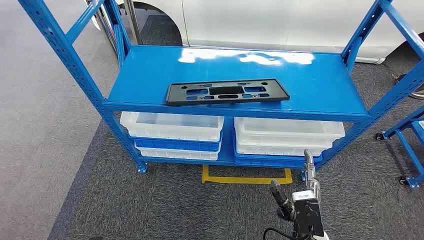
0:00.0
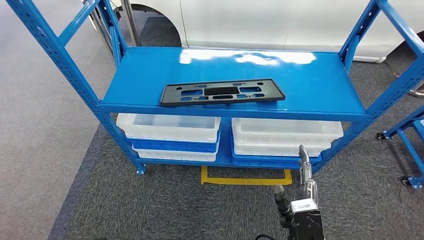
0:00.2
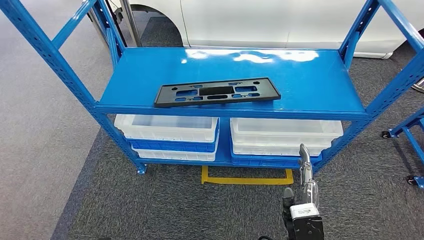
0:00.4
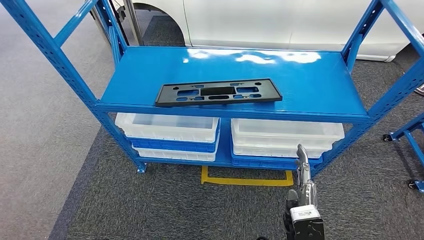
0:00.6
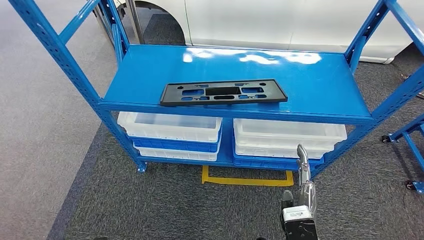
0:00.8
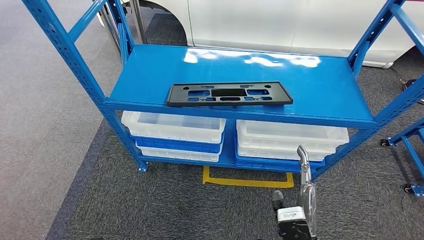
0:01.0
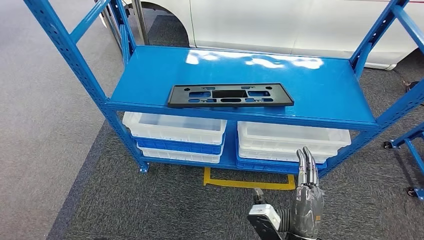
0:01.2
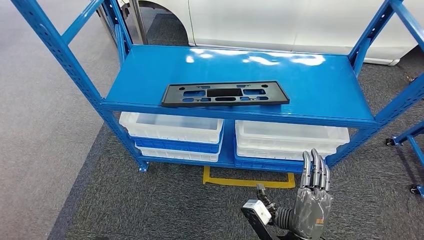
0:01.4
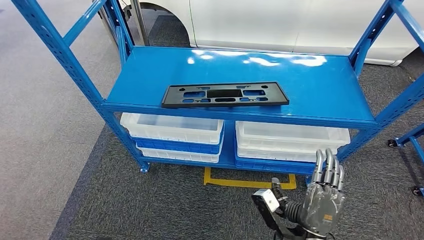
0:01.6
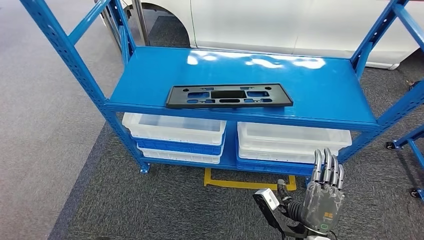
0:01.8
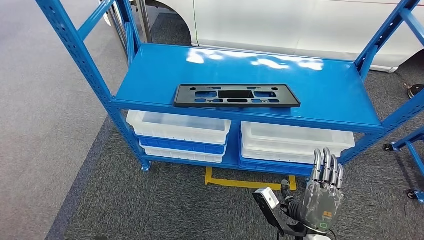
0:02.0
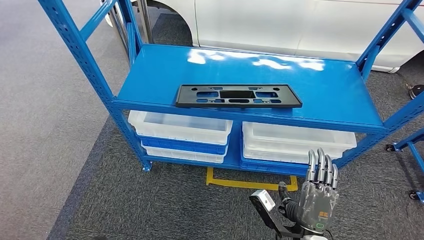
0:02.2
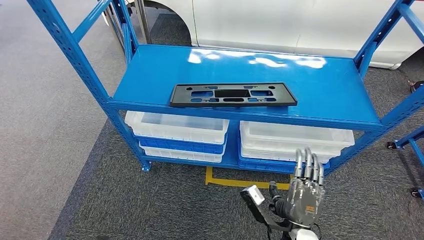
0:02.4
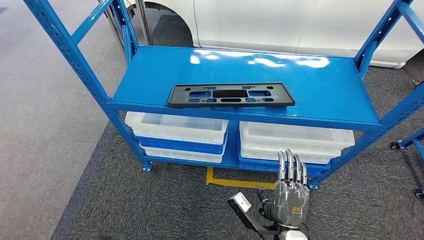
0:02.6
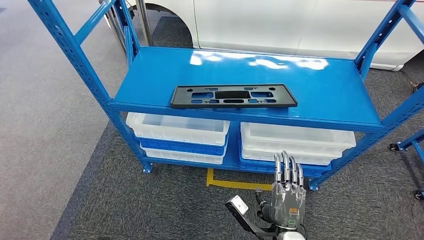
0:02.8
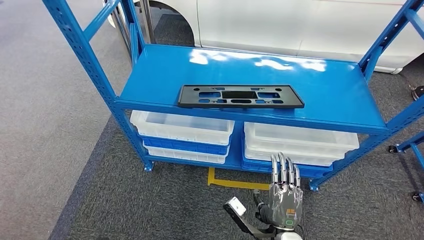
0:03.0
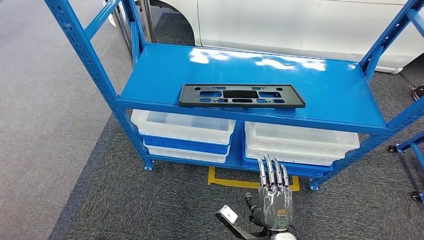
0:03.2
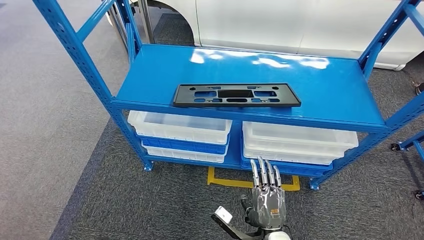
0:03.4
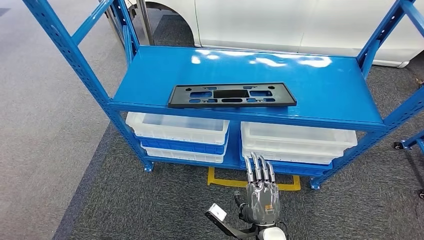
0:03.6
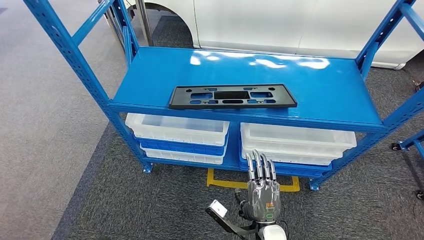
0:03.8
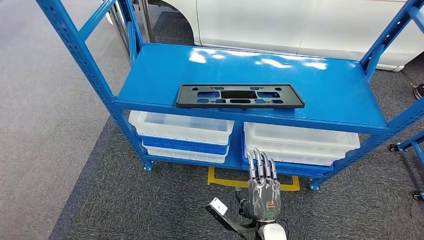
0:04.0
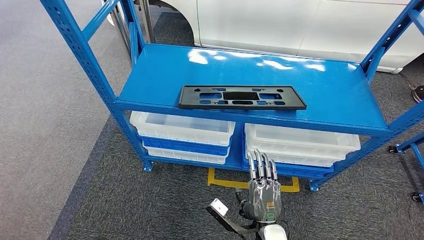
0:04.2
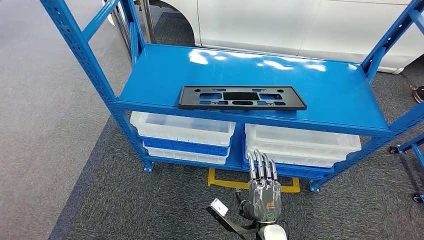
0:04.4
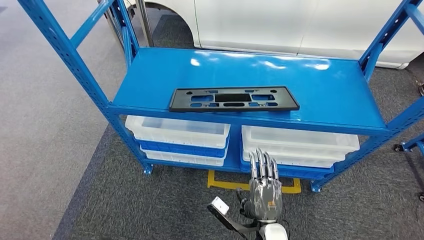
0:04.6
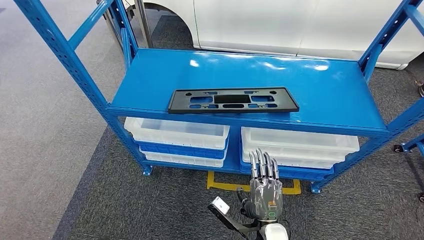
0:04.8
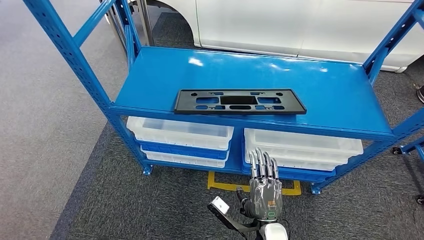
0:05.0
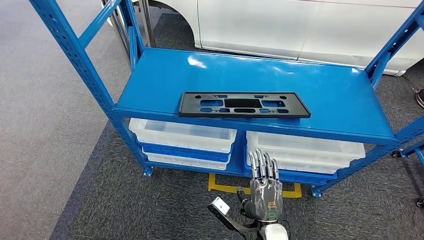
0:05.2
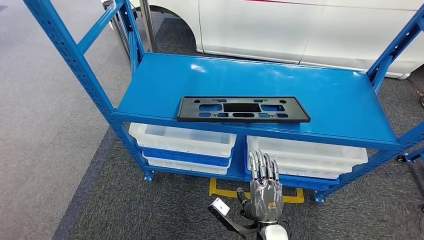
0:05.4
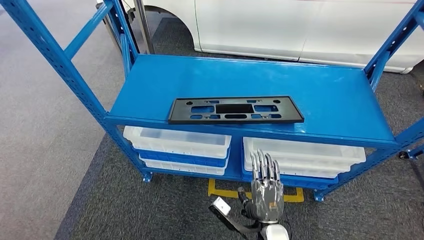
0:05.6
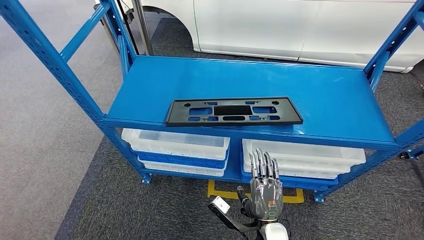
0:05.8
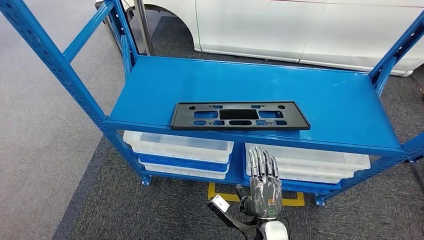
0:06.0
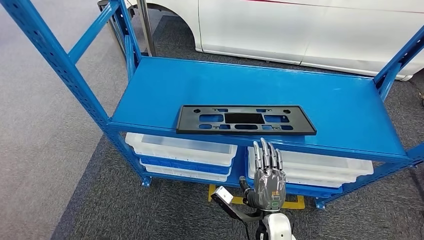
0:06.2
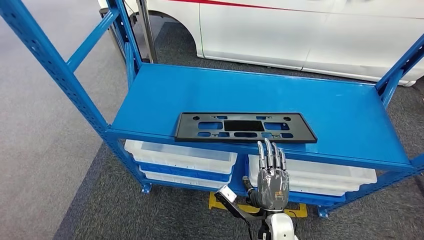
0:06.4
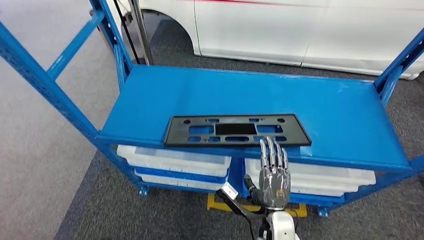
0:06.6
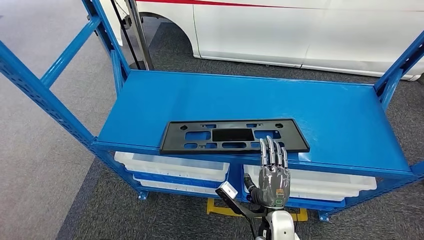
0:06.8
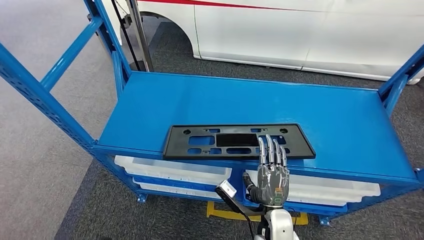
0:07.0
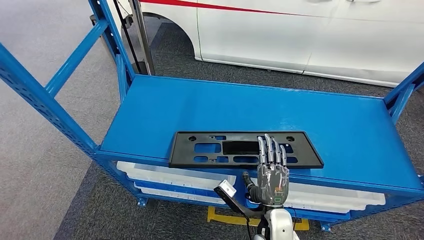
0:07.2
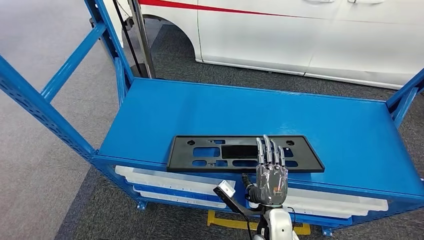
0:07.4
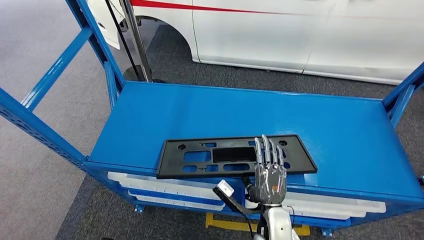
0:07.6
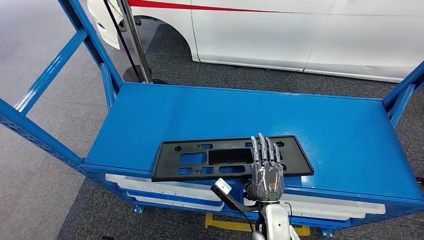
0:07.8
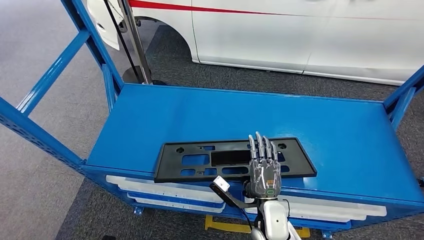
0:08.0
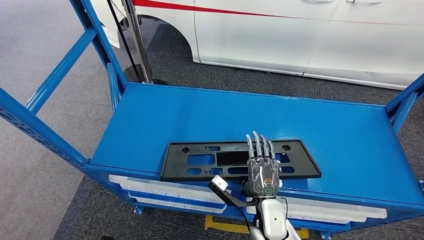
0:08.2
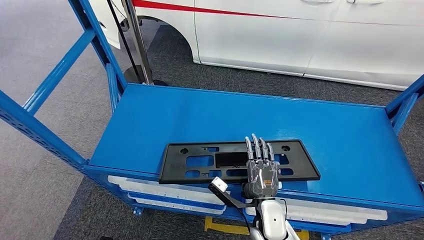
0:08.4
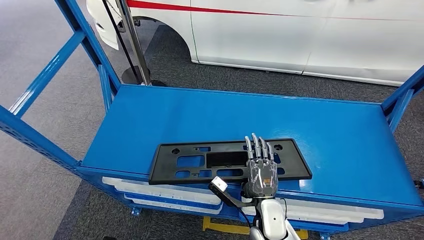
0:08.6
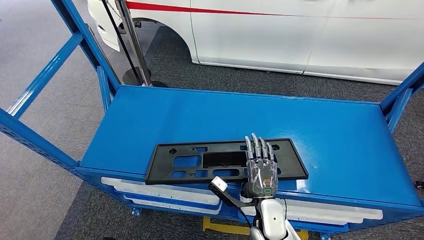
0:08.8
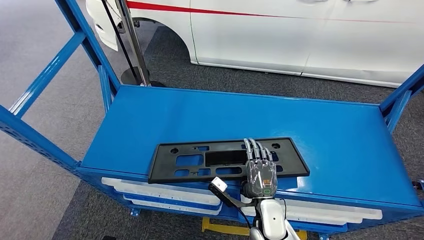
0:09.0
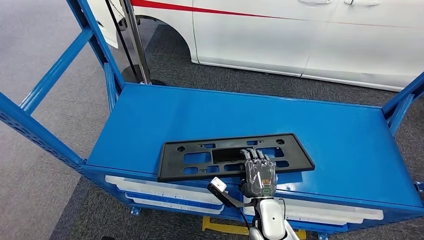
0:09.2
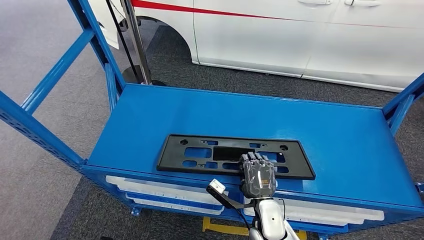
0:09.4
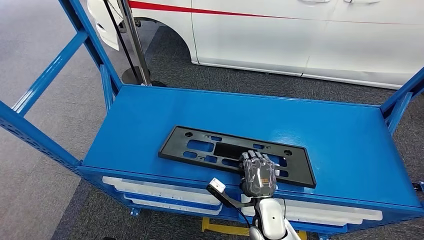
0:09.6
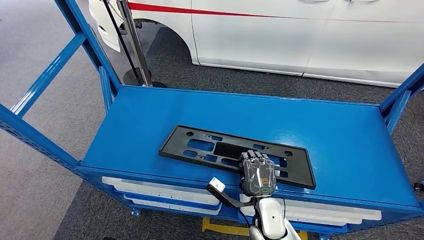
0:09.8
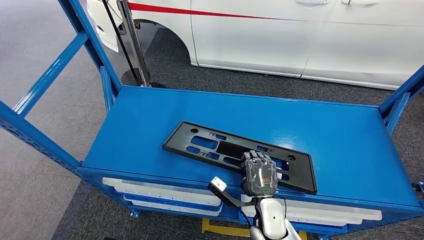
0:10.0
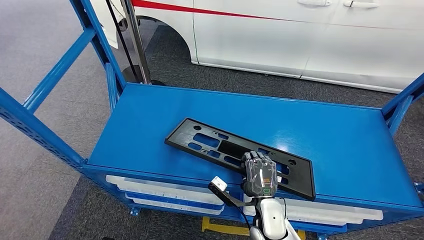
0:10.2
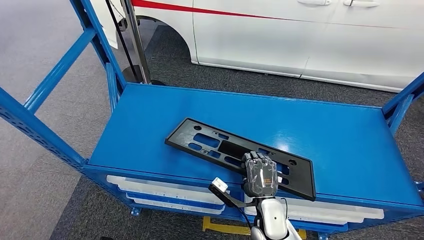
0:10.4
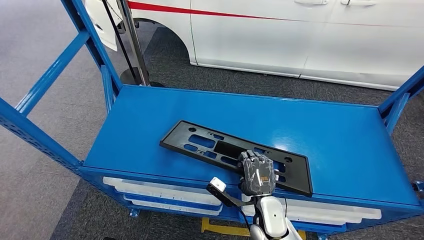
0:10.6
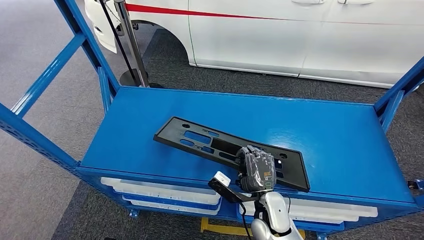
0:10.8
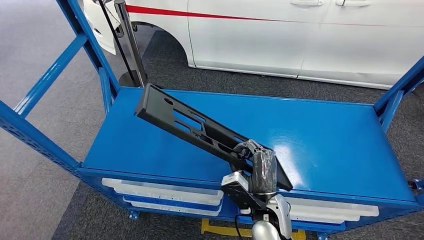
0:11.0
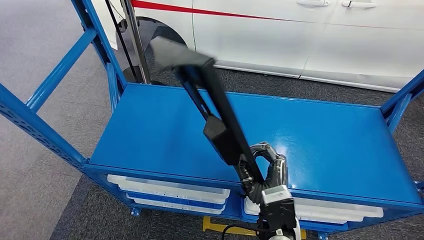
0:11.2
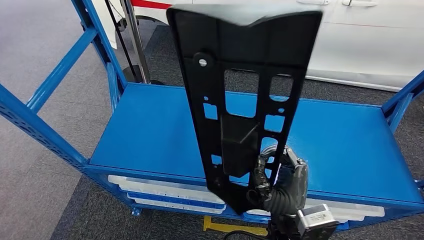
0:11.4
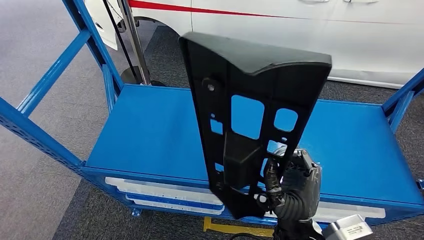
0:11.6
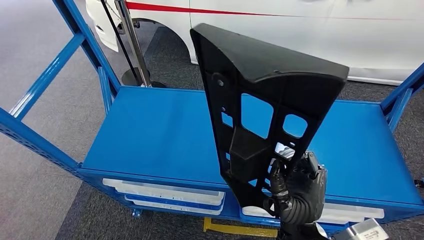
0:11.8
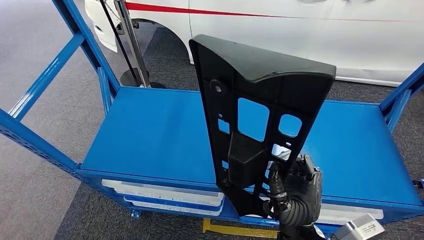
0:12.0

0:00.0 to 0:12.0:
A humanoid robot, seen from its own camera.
Step, 0:00.0 to 0:11.6: Pick up the large material from the shelf.
0:03.0 to 0:04.4: The hands make only small movements.
0:09.0 to 0:10.4: Both hands stay put.

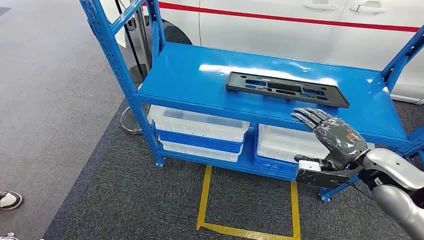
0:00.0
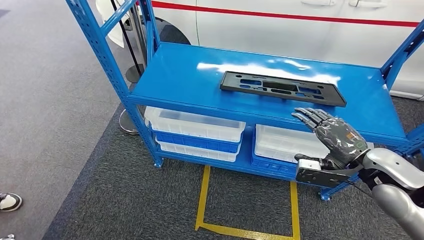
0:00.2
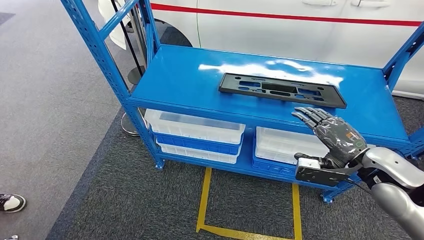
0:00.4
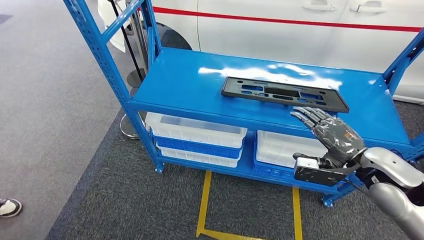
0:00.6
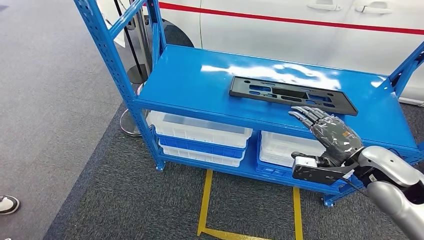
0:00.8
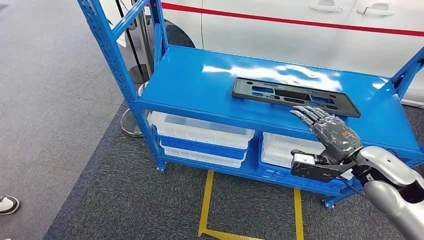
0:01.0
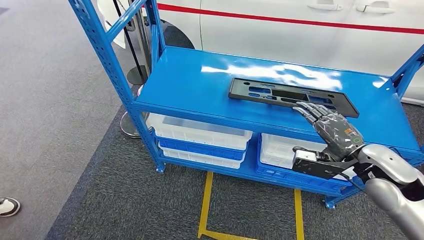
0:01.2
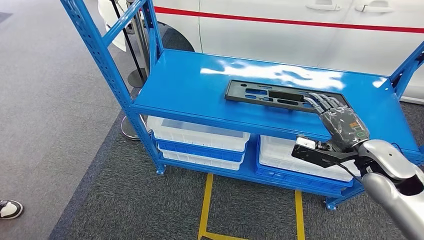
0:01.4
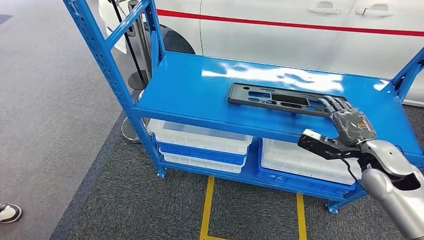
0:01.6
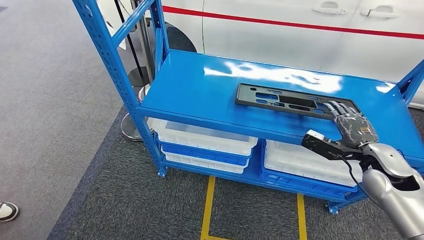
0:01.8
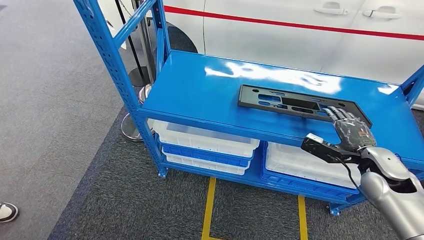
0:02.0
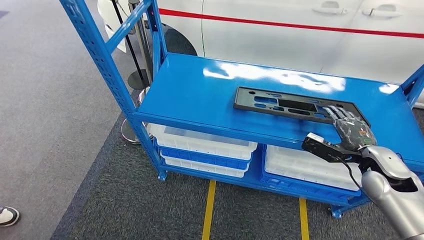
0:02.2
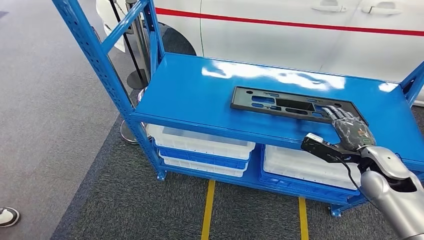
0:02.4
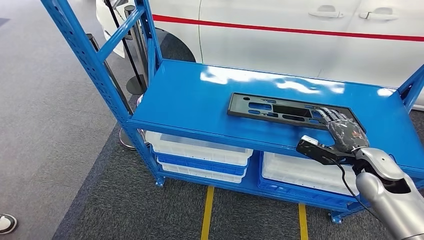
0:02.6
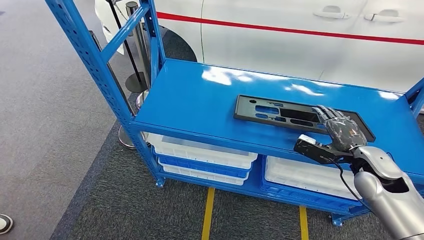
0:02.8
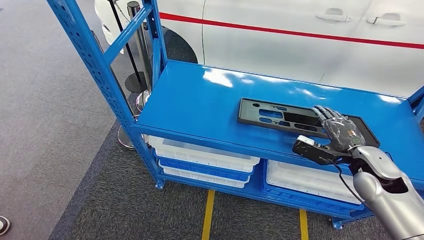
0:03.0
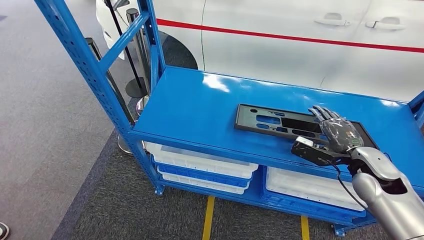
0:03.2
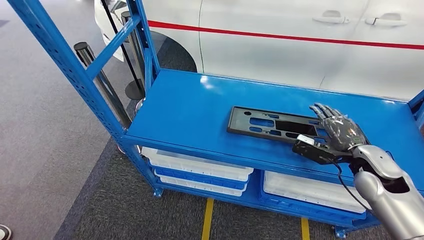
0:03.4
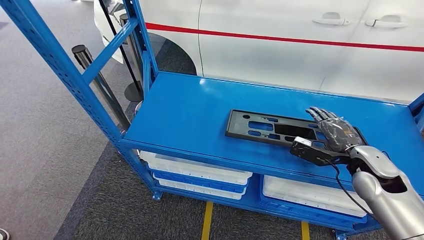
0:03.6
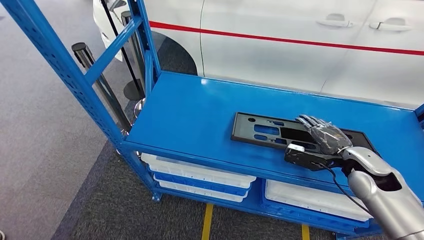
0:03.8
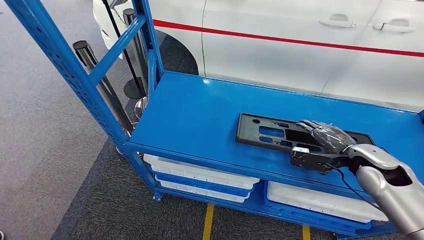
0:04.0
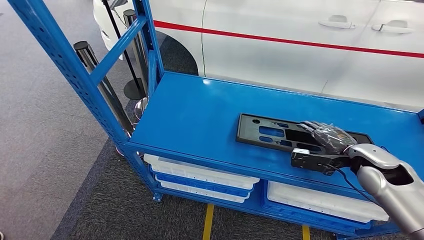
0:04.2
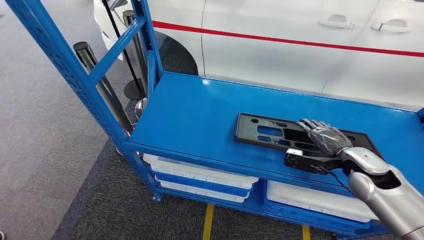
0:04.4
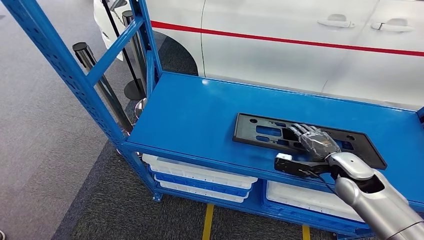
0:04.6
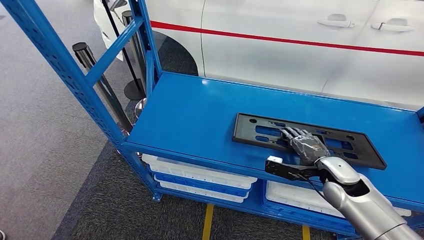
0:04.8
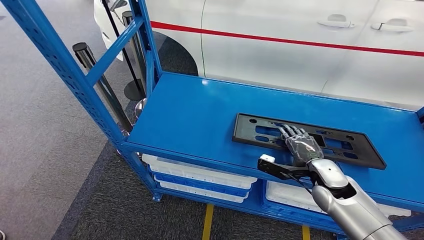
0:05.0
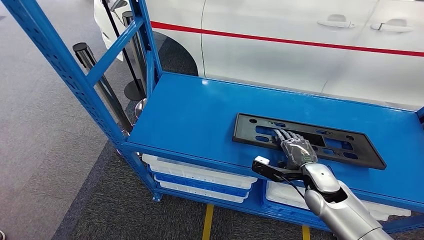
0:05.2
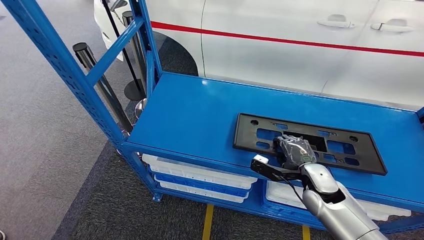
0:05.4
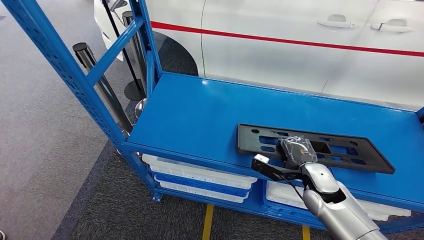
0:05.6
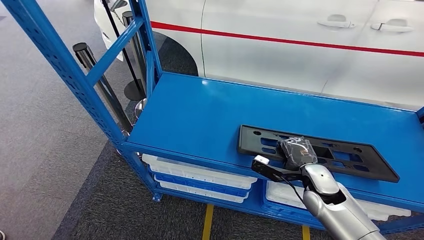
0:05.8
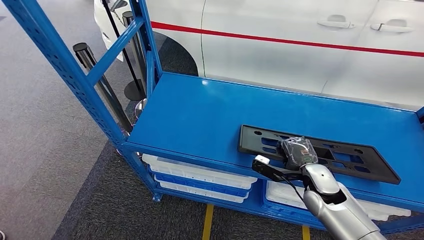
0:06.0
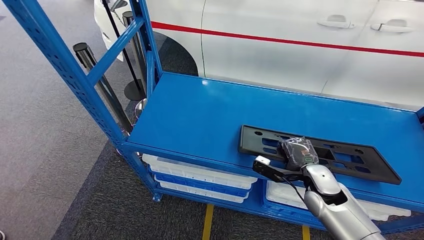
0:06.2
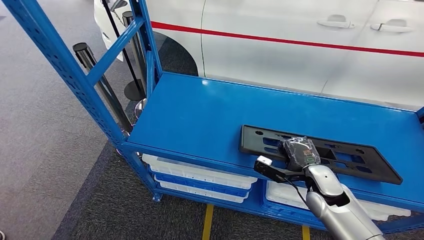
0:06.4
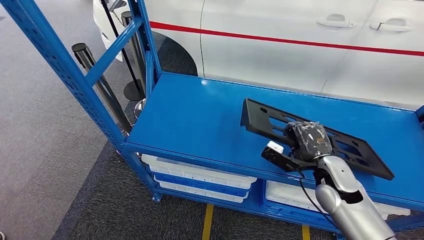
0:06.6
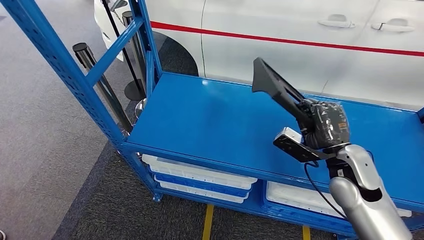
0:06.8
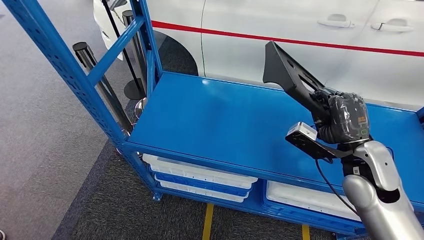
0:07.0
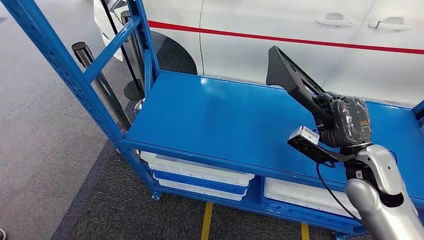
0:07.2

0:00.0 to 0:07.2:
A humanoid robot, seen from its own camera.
0:04.4 to 0:05.8: The right hand goes some 10 cm to the left and downward.
